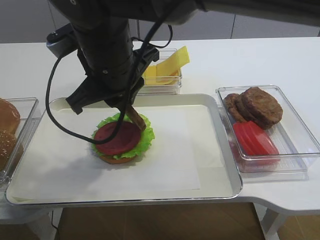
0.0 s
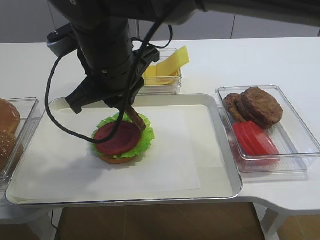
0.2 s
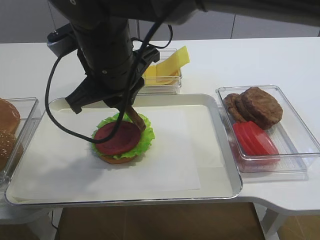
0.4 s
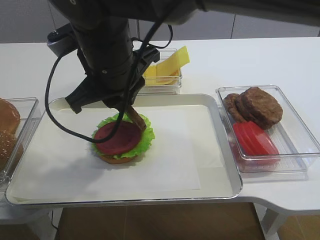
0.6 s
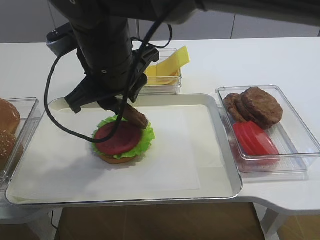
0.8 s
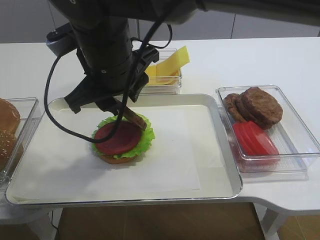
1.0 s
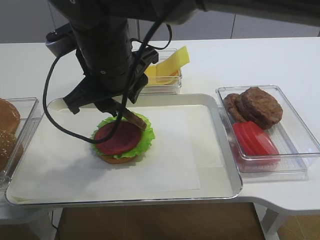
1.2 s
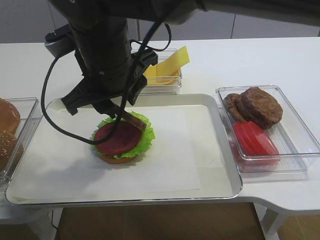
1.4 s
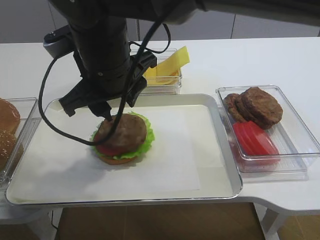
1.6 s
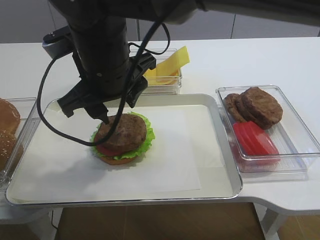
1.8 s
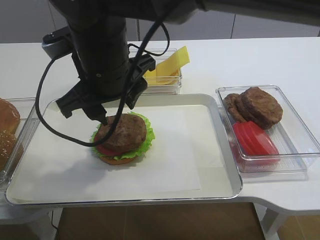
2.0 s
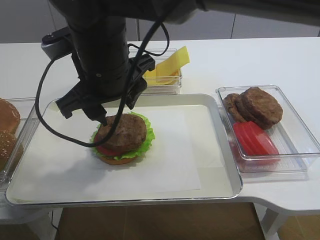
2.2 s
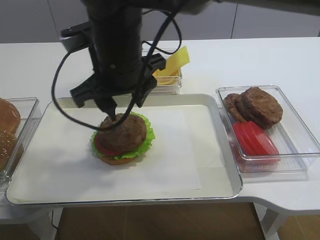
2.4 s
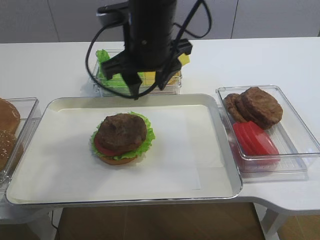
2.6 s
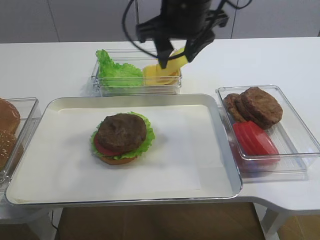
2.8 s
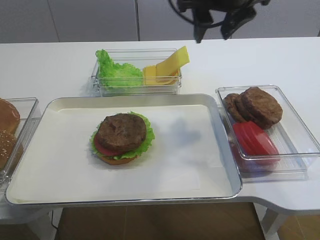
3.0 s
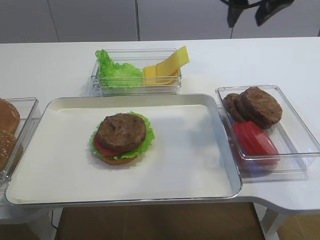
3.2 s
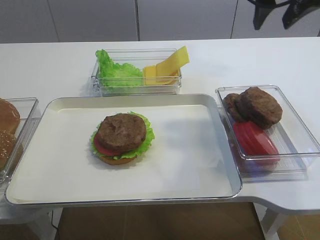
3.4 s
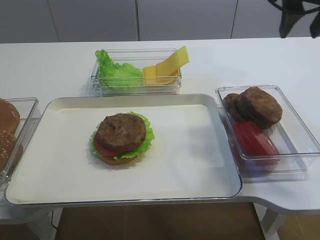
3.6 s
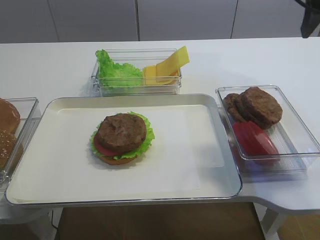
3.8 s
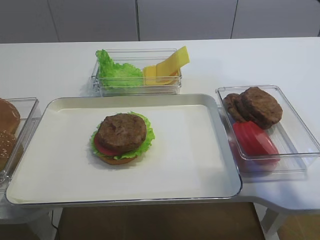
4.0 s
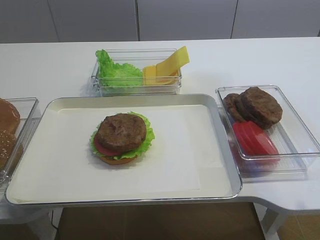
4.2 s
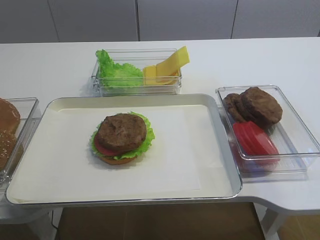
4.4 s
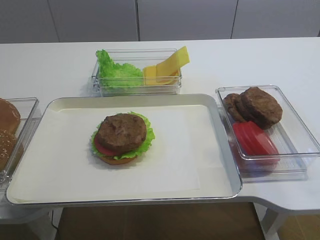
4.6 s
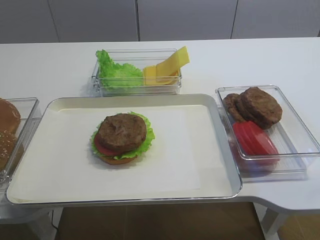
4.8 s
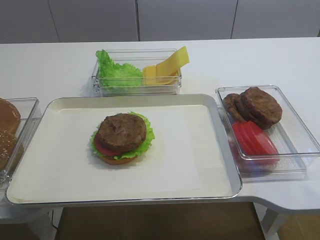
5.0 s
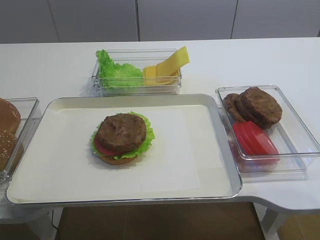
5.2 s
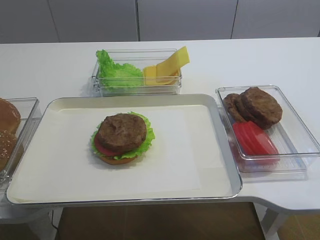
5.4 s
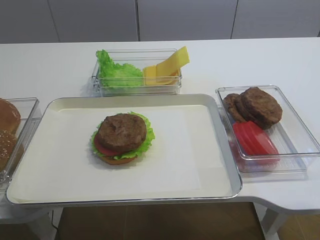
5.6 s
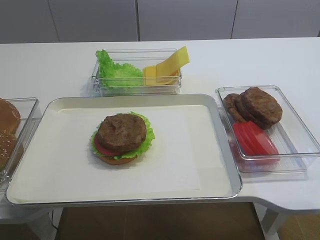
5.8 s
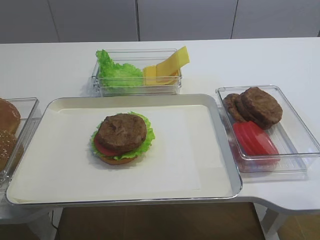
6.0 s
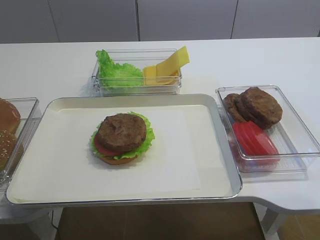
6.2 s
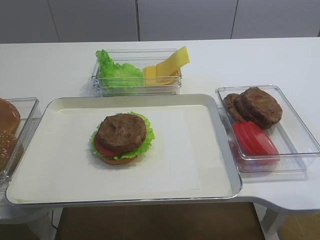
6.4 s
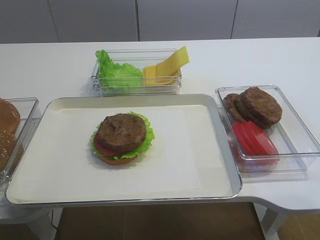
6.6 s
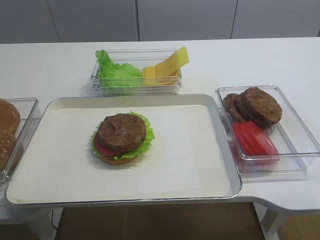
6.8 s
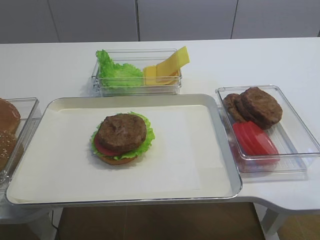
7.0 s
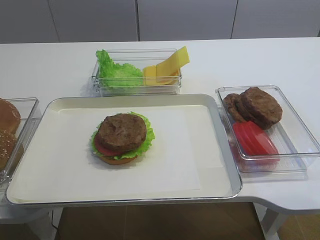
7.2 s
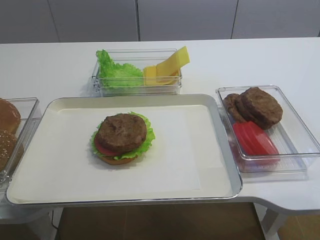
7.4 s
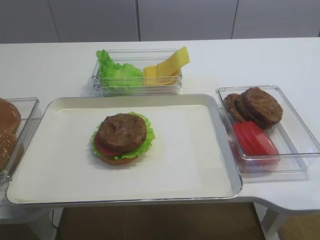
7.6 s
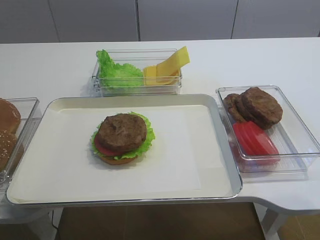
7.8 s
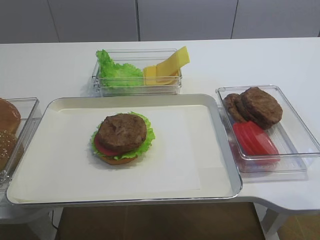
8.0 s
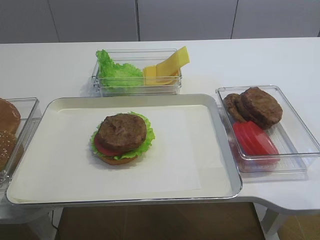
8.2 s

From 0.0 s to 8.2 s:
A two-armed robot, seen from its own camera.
Step, from 0.0 s to 2.0 s: Place the cutlet on the tomato slice with the right gripper.
From 0.0 s to 1.6 s: The right gripper opens.
From 1.6 s to 3.2 s: The right gripper heads to the right and forward, covering roughly 25 cm.
From 3.2 s to 5.0 s: The right gripper goes approximately 40 cm backward.
From 6.6 s to 8.2 s: Both grippers stay put.

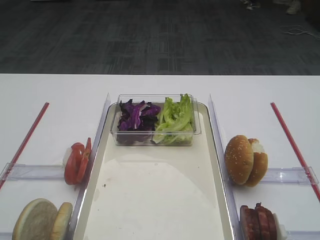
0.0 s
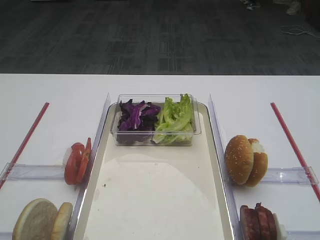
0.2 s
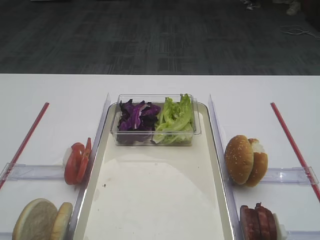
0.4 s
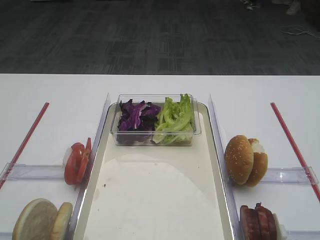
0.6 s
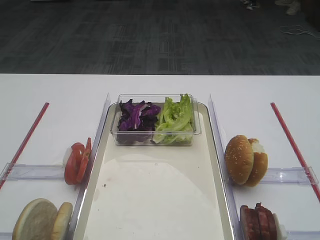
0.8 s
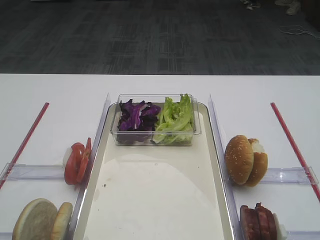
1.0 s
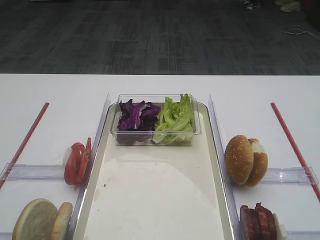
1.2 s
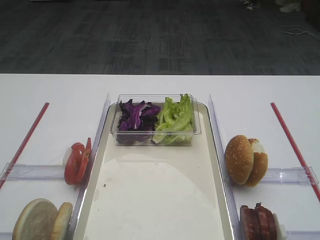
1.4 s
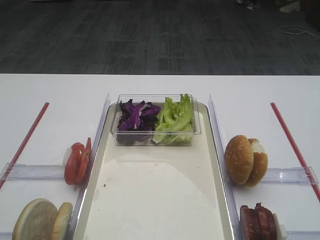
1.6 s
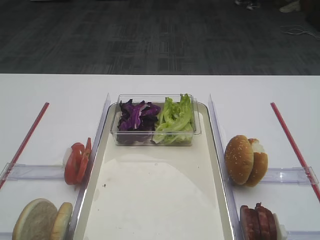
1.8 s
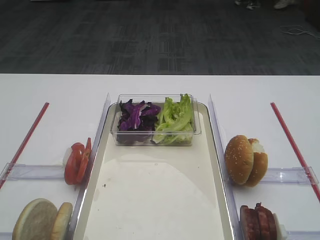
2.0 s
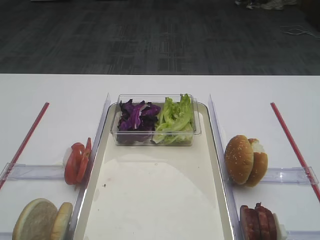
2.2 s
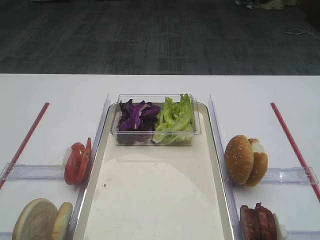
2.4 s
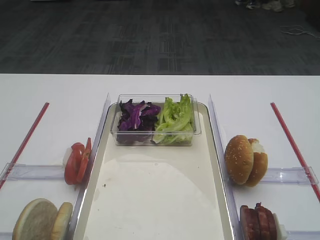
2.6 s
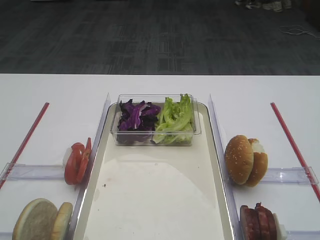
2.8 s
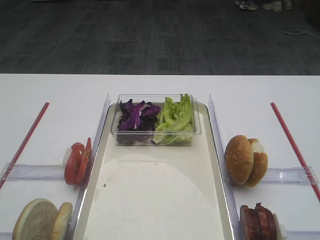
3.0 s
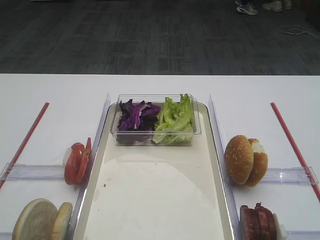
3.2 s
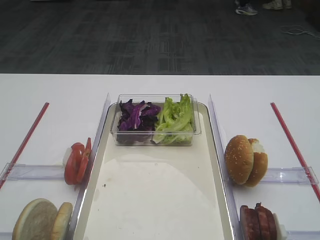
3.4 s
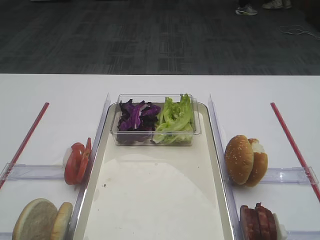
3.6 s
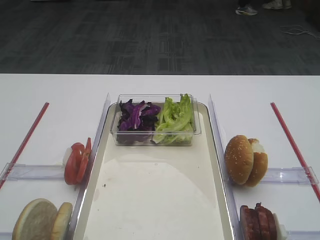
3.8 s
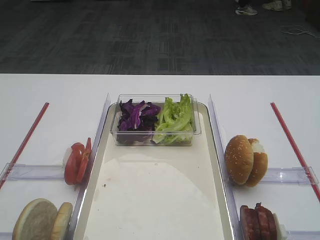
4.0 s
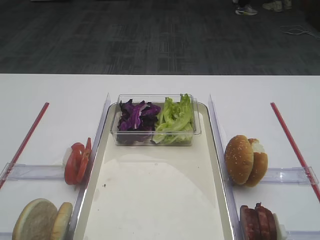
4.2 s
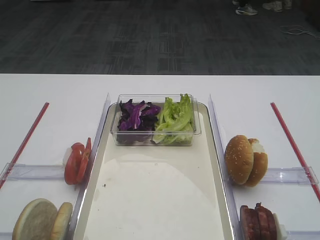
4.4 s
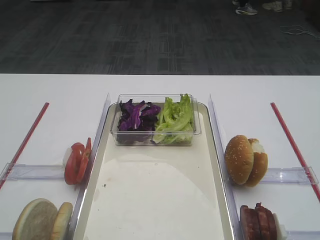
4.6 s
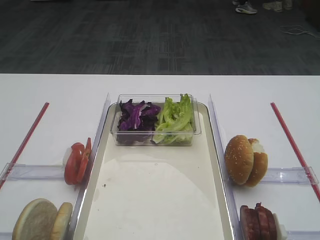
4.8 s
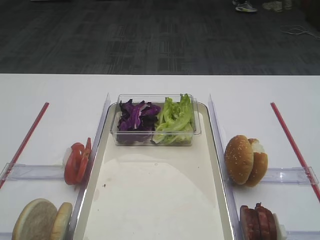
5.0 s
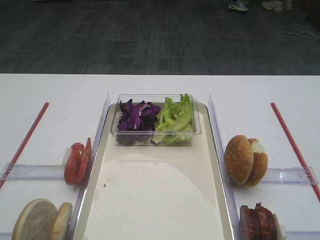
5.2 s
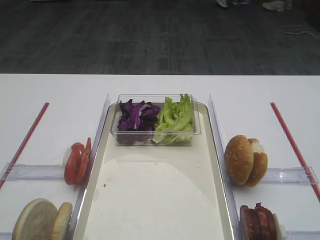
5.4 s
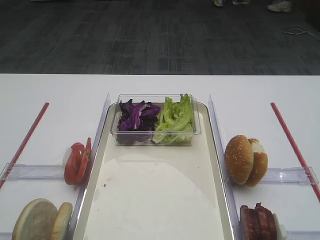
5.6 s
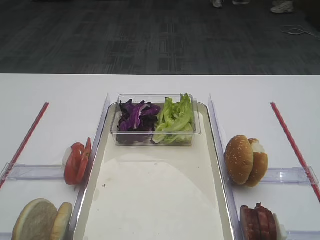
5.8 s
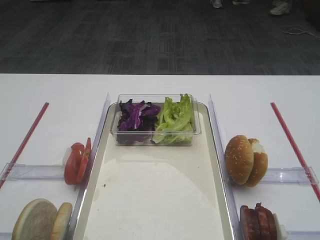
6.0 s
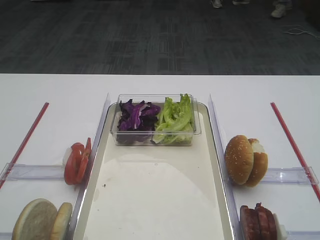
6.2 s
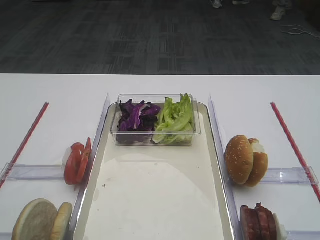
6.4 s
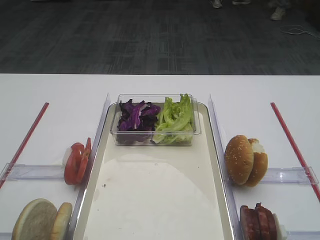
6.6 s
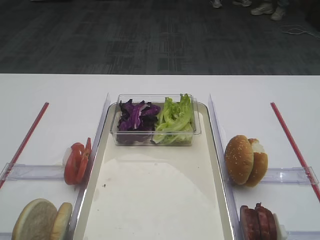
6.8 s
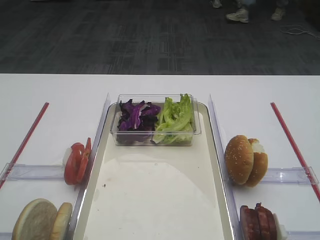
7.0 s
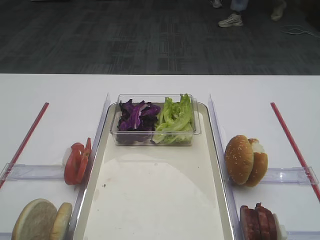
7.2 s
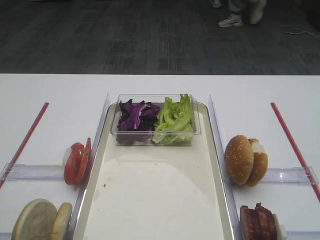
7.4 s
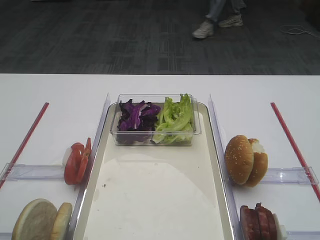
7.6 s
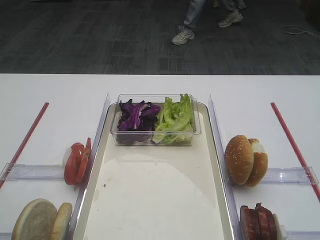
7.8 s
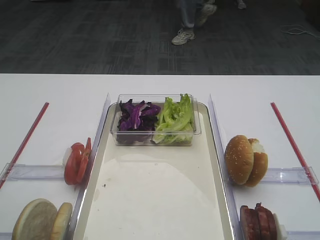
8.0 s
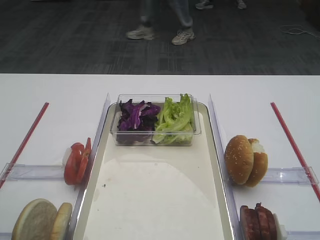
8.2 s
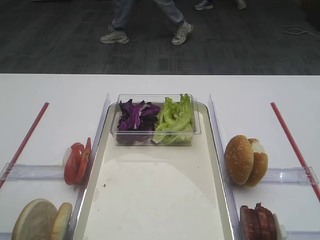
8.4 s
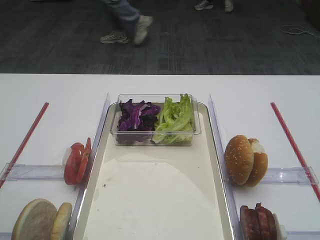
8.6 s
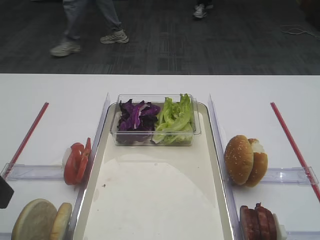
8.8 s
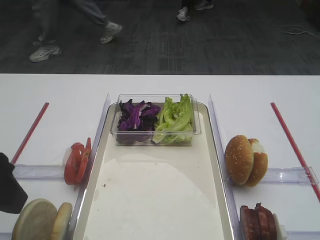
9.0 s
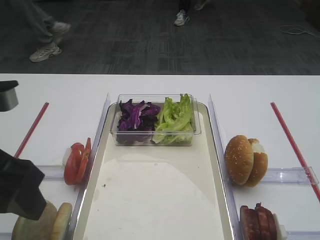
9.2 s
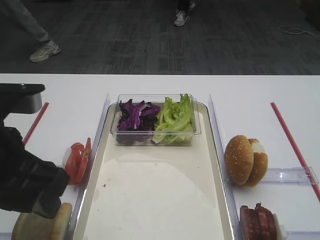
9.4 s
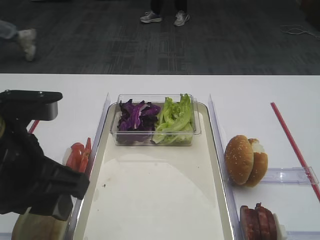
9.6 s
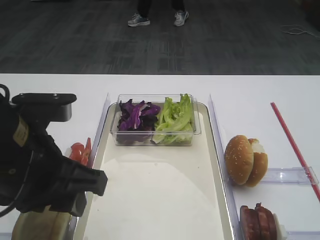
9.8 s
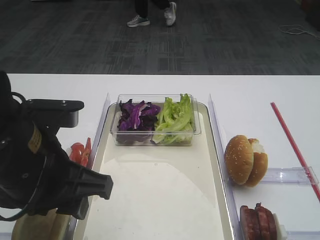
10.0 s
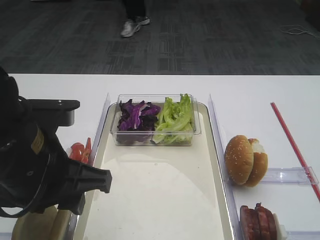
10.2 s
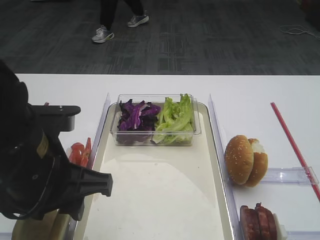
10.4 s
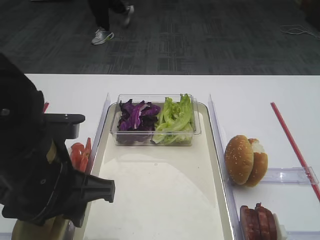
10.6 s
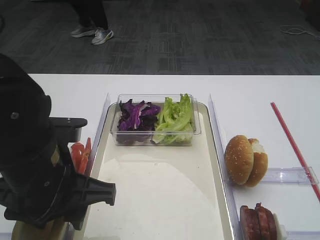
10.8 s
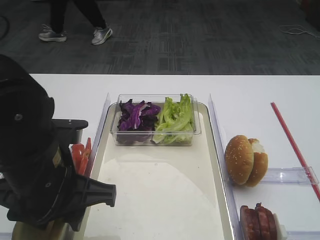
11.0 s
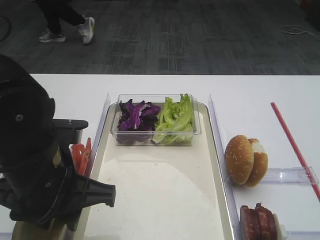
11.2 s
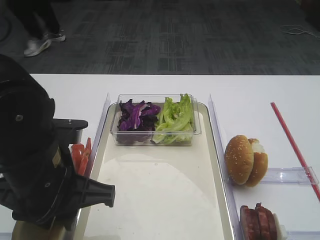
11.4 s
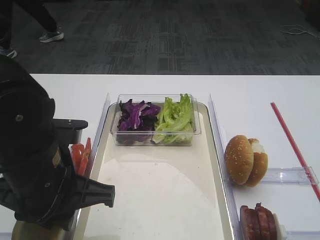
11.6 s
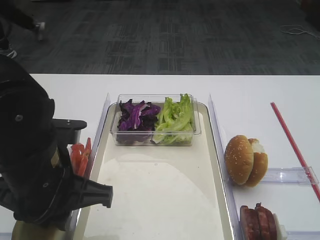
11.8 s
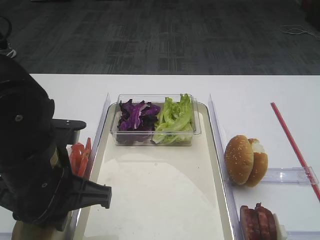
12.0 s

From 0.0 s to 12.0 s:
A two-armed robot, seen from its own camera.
From 1.6 s to 4.4 s: Both grippers stay about where they are.
From 7.6 s to 9.0 s: The left gripper is displaced to the right by some 5 cm.
From 9.0 s to 10.4 s: The left gripper moves to the right and downward, approximately 10 cm.
From 10.4 s to 12.0 s: The left gripper closes its fingers.

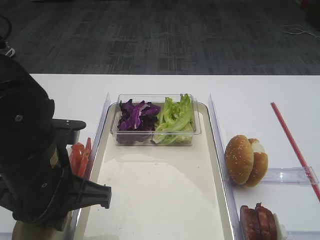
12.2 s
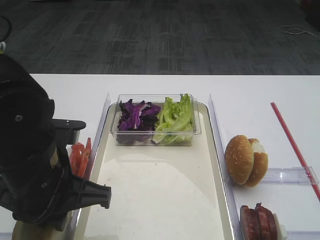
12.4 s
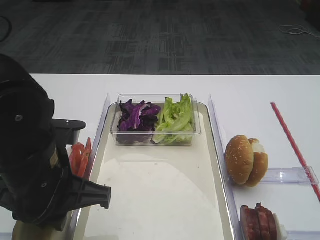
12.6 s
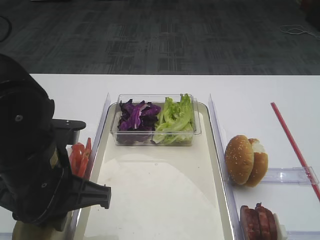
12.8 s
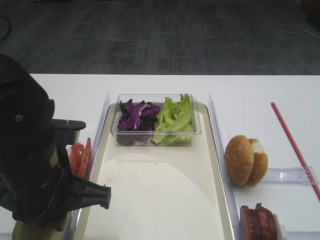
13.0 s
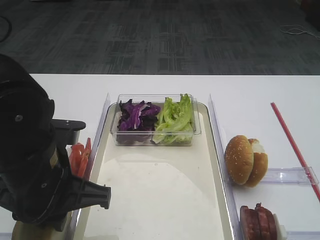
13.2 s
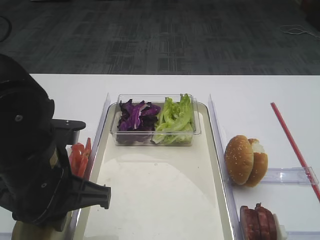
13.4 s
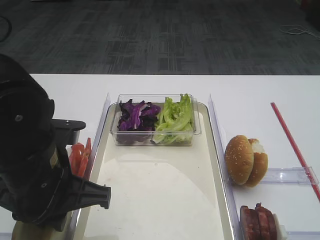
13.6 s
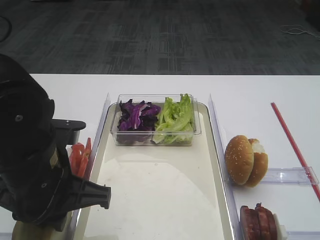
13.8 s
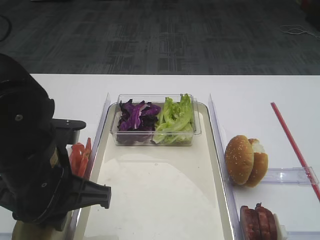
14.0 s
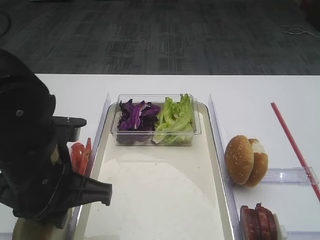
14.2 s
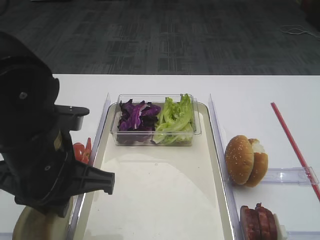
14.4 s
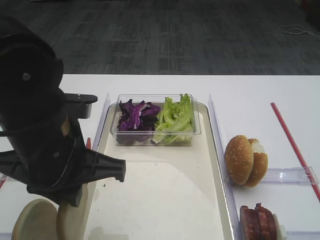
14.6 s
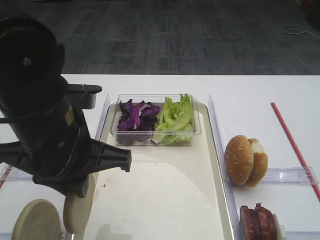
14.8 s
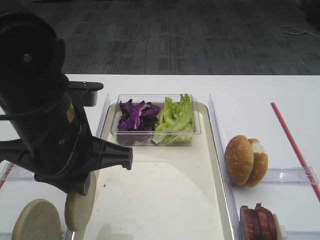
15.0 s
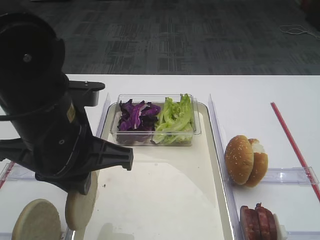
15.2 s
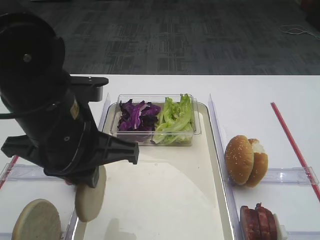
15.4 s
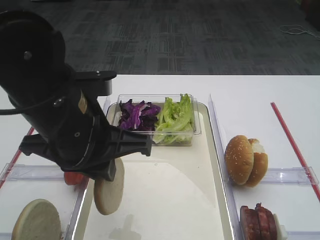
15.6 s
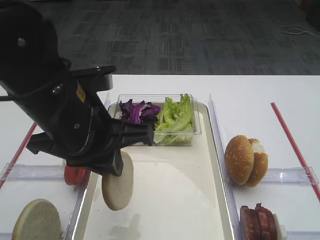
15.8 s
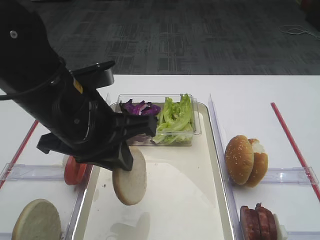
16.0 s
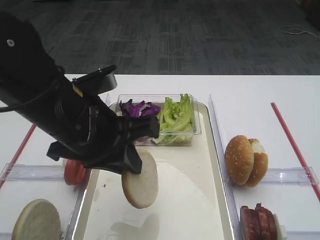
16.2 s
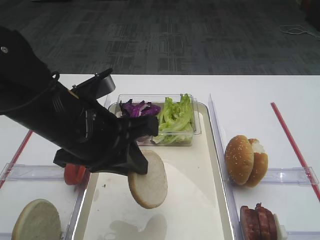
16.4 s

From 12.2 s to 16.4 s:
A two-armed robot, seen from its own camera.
Step, from 12.2 s to 14.4 s: Pick up the bread slice with the left gripper.
From 12.2 s to 13.6 s: Both grippers stay about where they are.
From 13.6 s to 15.0 s: The left gripper shifts by approximately 5 cm.
